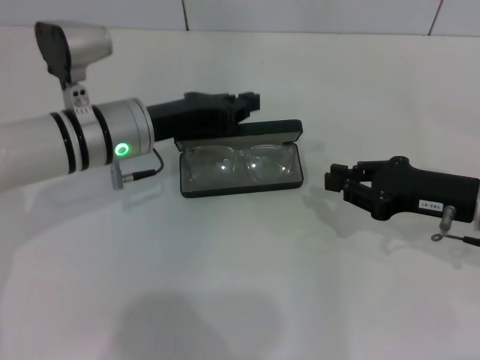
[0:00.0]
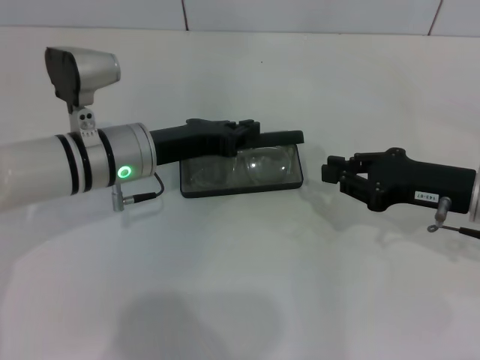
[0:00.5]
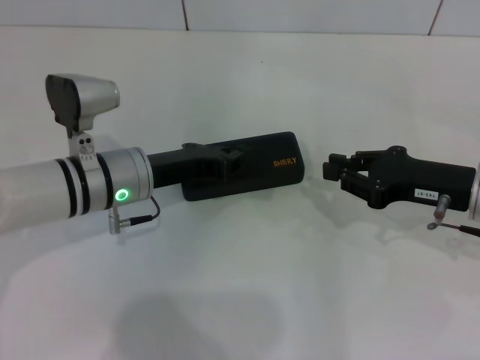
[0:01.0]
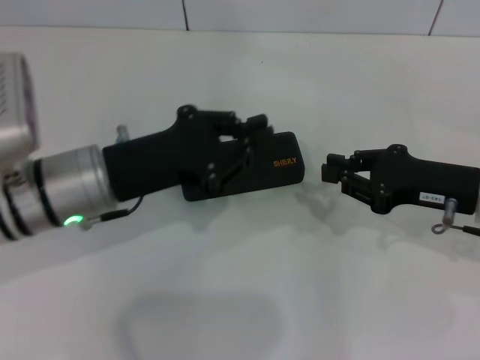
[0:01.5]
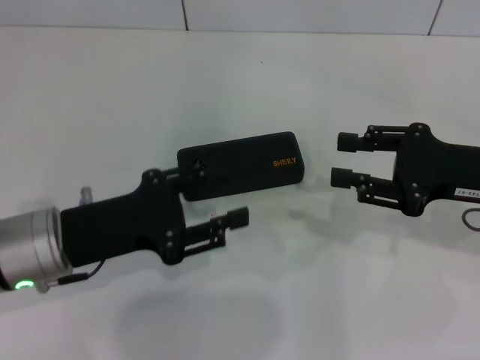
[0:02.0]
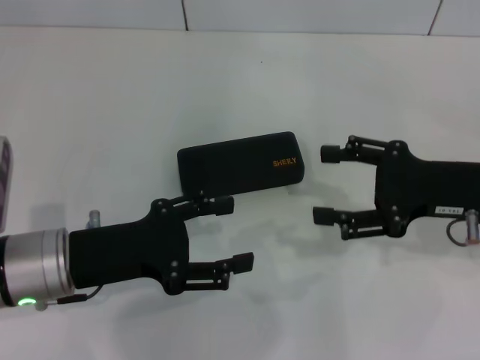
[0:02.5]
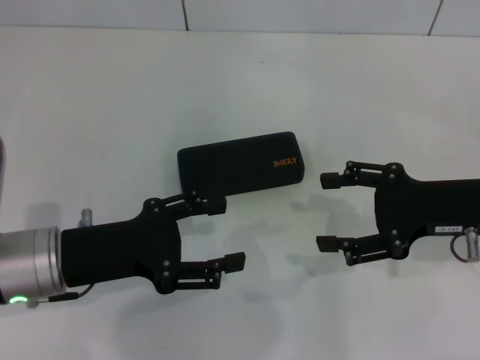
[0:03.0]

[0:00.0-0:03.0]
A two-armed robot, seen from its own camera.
0:00.0 to 0:01.5: The left gripper heads backward, covering roughly 5 cm.
0:01.5 to 0:03.0: The right gripper opens; the left gripper is displaced backward by about 5 cm, and opens up.

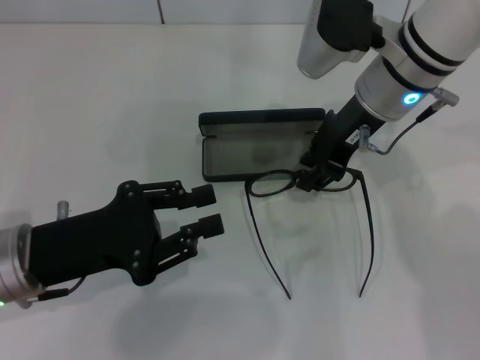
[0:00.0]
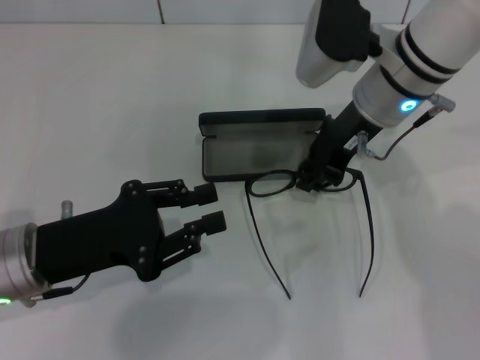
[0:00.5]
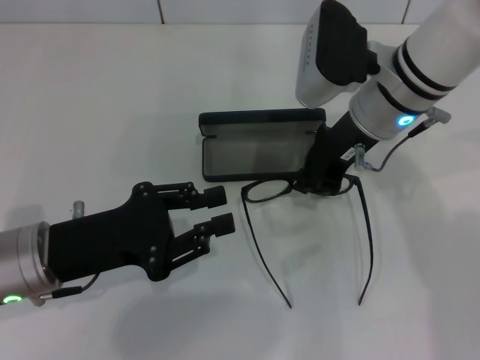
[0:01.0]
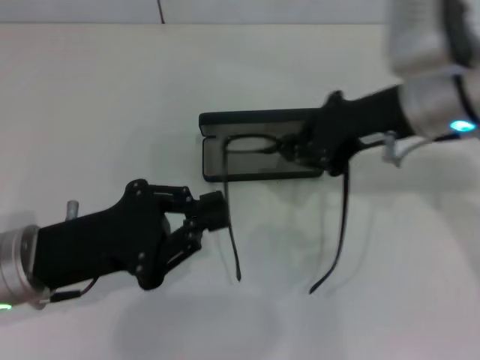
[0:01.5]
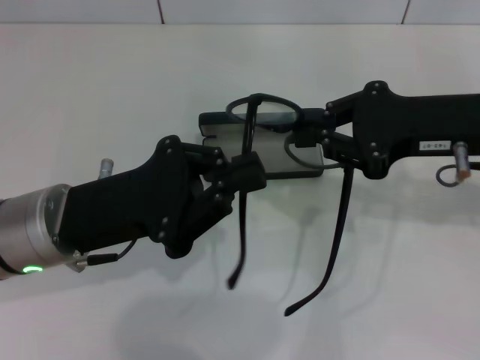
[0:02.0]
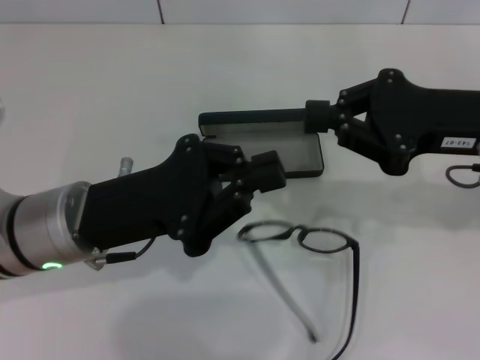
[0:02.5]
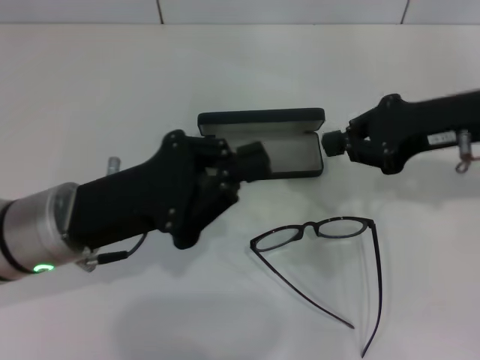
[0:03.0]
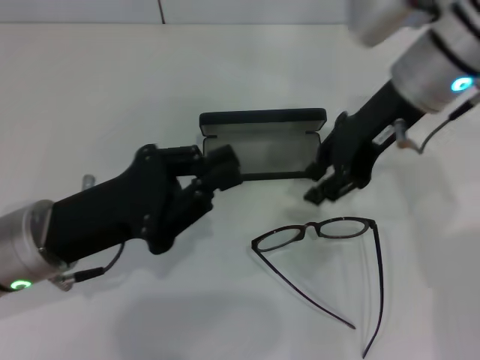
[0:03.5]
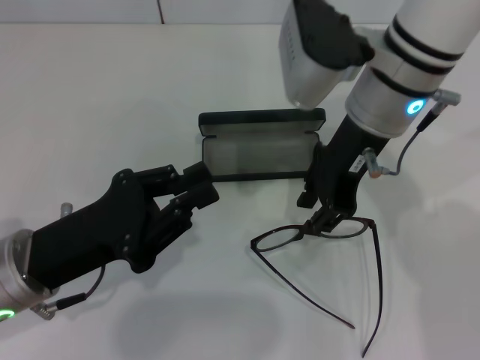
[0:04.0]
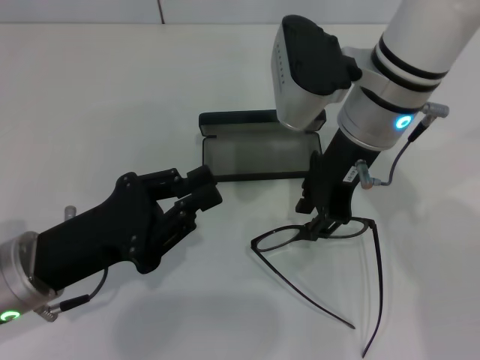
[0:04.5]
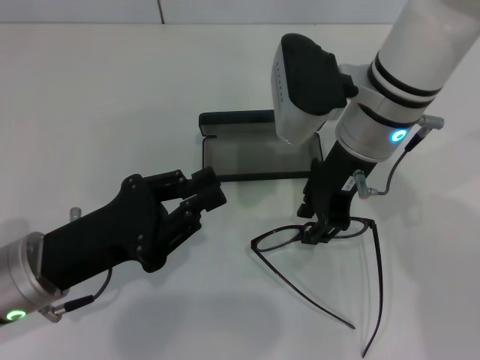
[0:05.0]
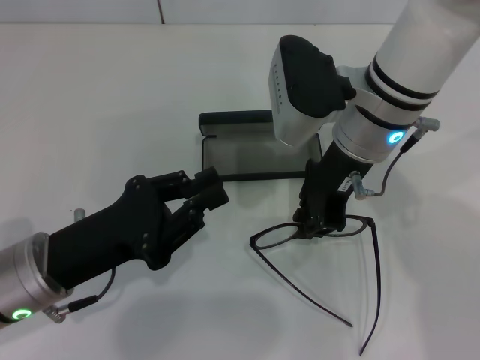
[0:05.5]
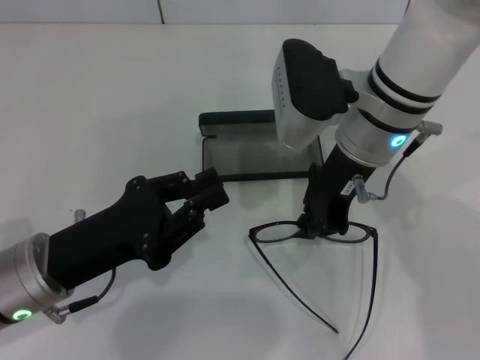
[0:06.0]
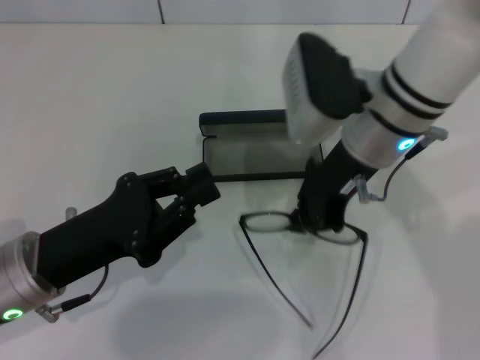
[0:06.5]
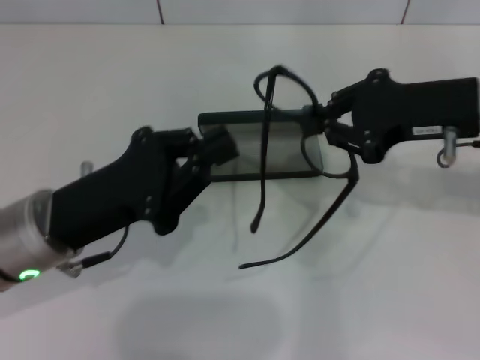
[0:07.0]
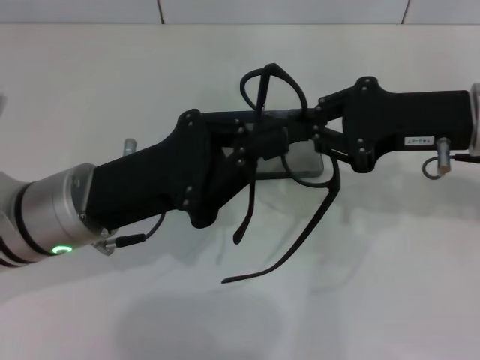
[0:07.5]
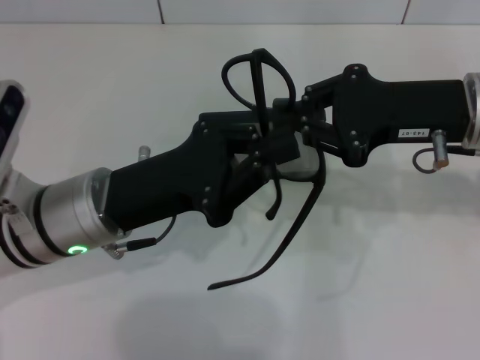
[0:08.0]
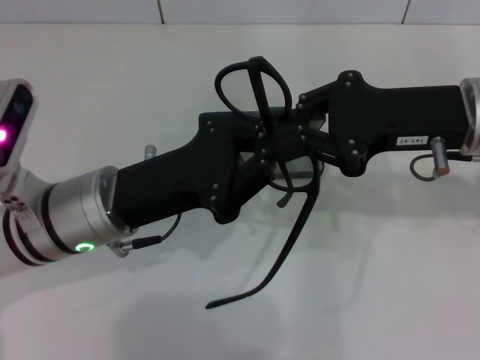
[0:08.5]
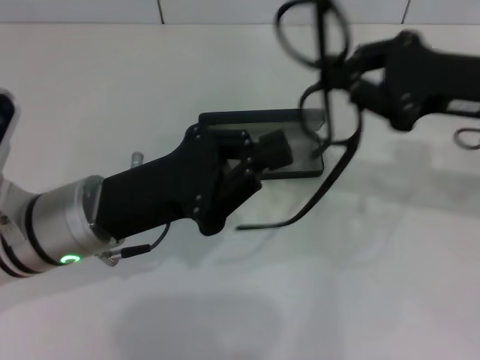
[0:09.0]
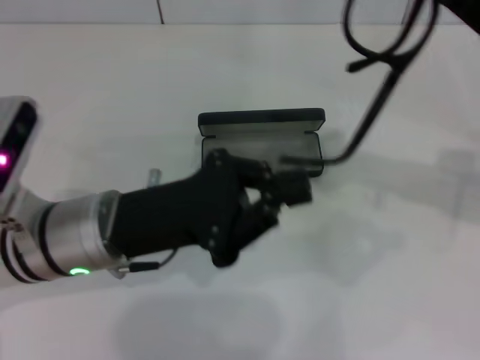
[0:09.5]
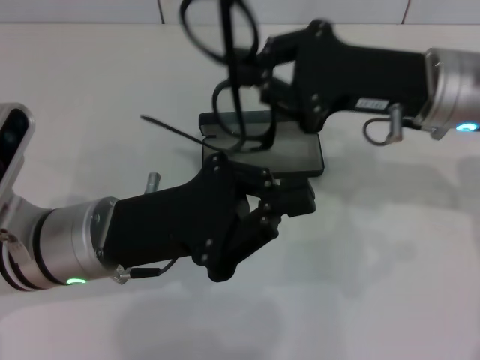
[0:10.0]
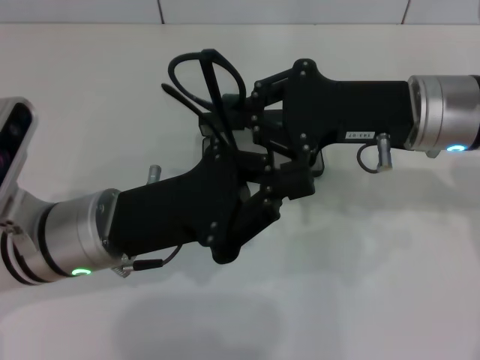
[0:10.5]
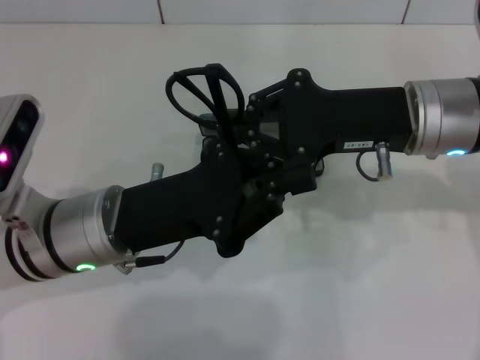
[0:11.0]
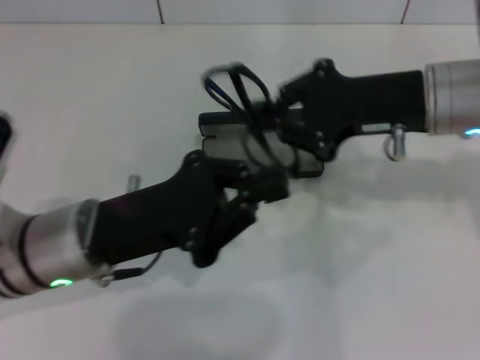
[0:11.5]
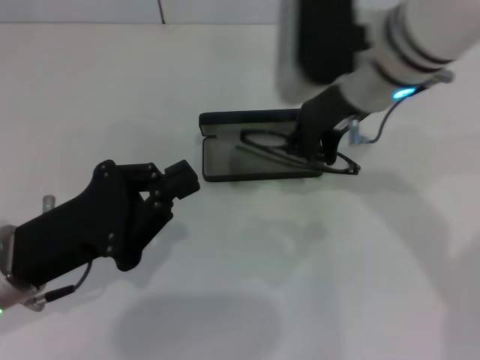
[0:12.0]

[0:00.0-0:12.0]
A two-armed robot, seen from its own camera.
Step, 0:00.0 to 0:05.5: Grab the eyeglass frame with your right hand.
Step, 0:06.0 to 0:11.0: Fold the frame with your left hand.
0:00.0 to 0:02.0: The right gripper heads to the right and backward, covering roughly 15 cm. The left gripper moves about 5 cm, and closes.
0:02.0 to 0:04.0: The right gripper travels to the left by about 15 cm, and opens up; the left gripper ends up about 5 cm from where it was.
0:06.0 to 0:08.0: The right gripper moves to the right, some 10 cm; the left gripper changes place by some 10 cm.
0:10.0 to 0:12.0: Both grippers move to the left, approximately 5 cm.

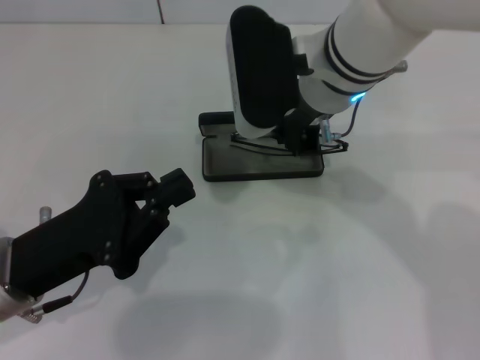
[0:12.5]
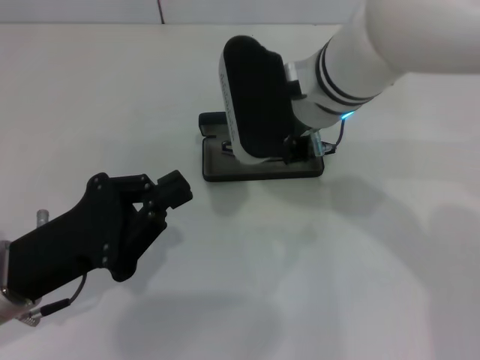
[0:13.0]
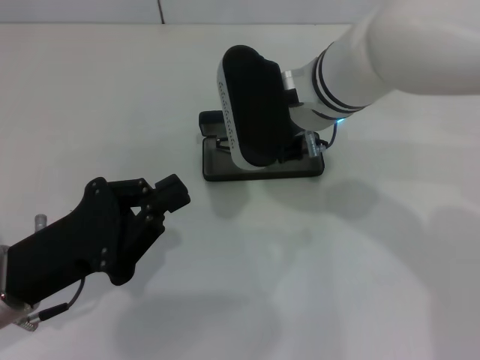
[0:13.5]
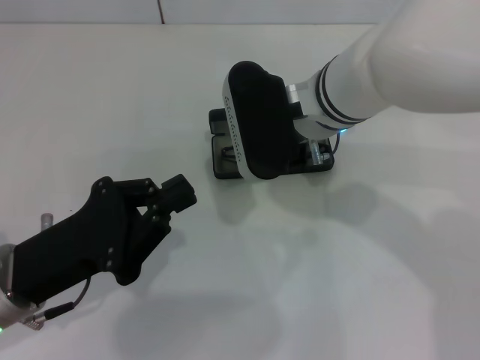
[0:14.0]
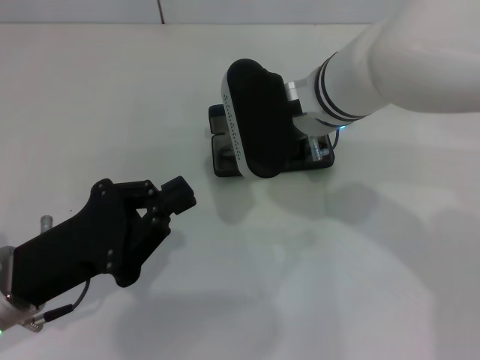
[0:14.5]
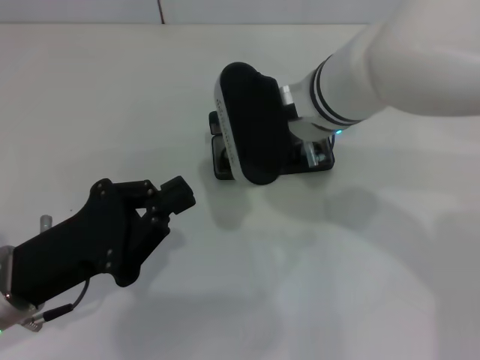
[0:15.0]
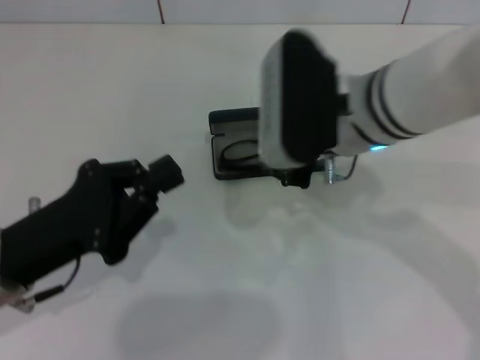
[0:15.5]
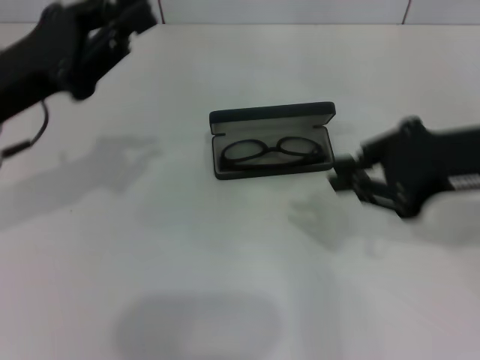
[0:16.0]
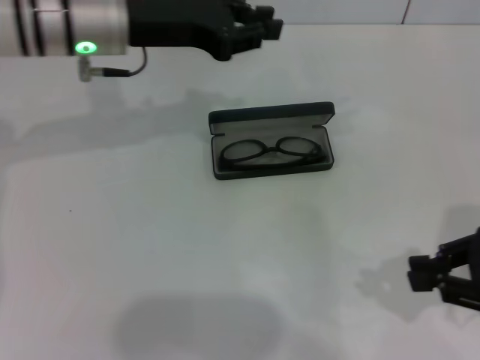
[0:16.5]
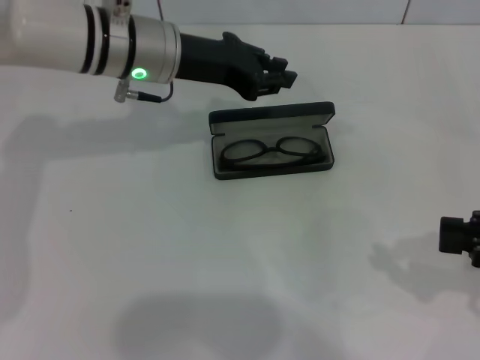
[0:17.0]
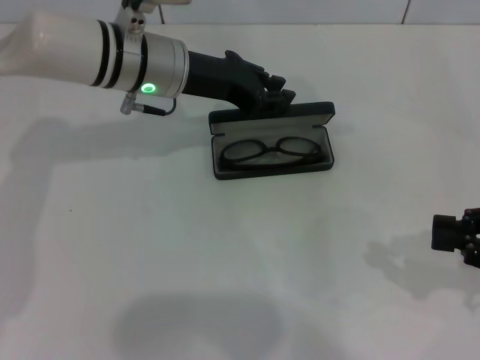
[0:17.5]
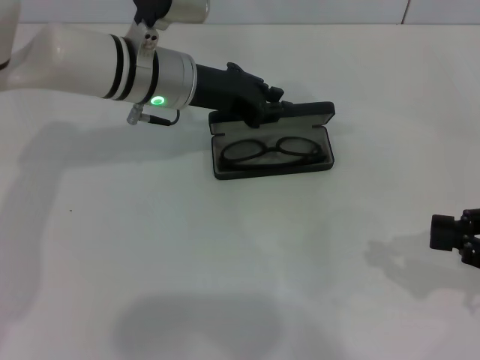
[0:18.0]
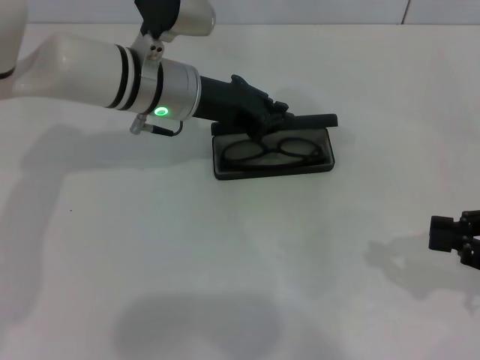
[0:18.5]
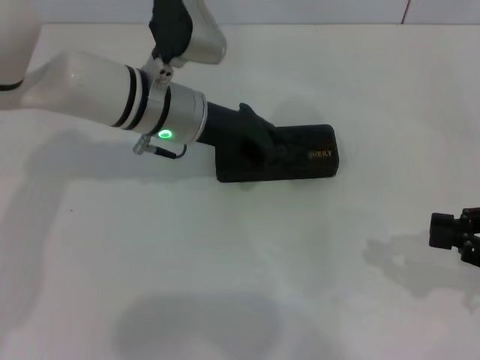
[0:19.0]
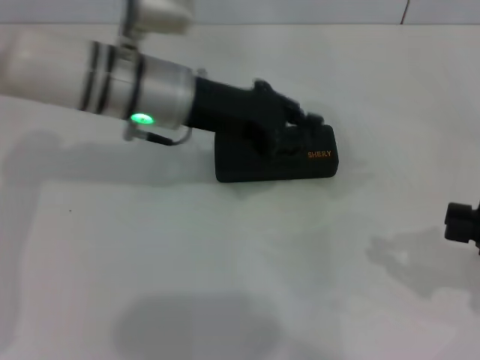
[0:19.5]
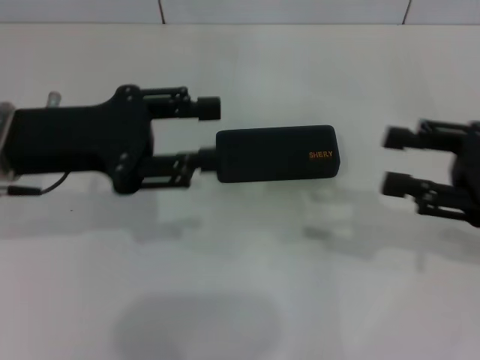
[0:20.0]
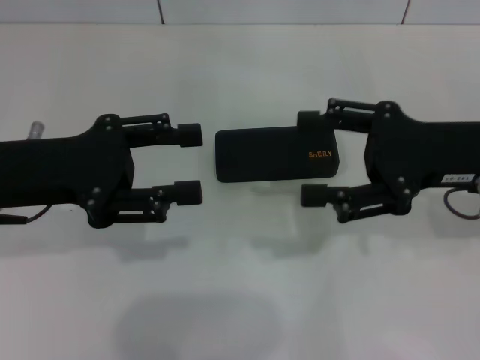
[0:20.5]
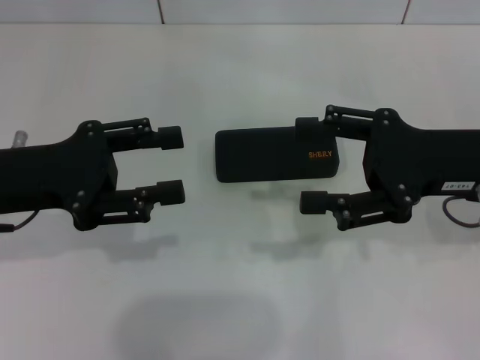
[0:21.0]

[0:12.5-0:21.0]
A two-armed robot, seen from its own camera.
Step, 0:12.5 to 0:14.5: Put the glasses into the case with your right hand.
Step, 0:15.0 to 0:19.0: Close the glasses case with your left hand.
0:12.5 to 0:14.5: The grippers stay close to where they were, moving slightly.
0:14.5 to 0:16.5: The left gripper travels forward and upward by some 25 cm; the right gripper moves to the right and backward, approximately 30 cm.
0:16.5 to 0:19.0: The left gripper is displaced downward and to the right by approximately 10 cm.
0:19.0 to 0:21.0: The left gripper travels to the left and backward by some 20 cm, and opens. The right gripper moves to the left and forward, some 15 cm, and opens up.

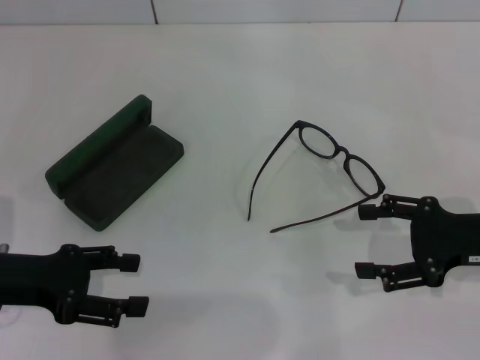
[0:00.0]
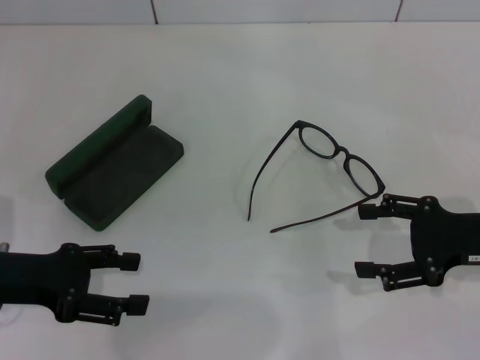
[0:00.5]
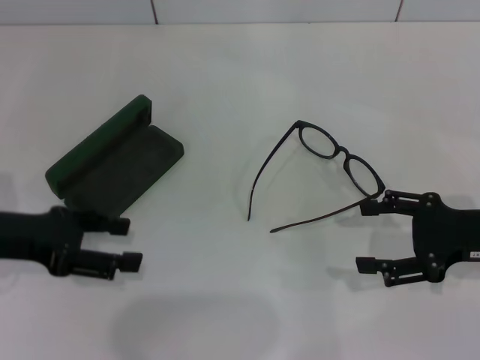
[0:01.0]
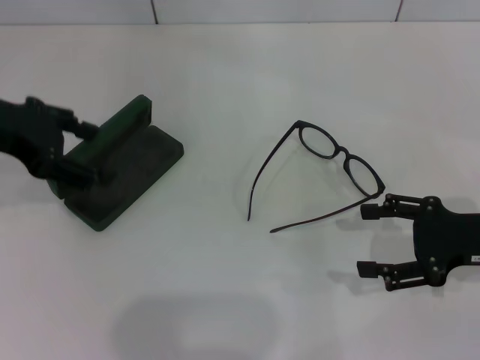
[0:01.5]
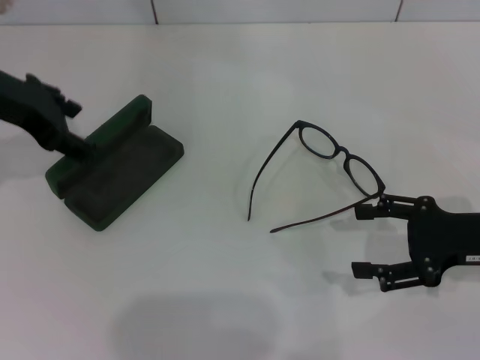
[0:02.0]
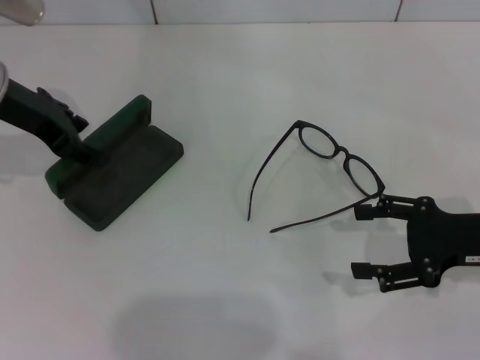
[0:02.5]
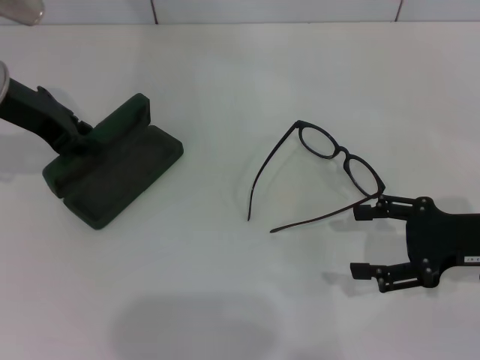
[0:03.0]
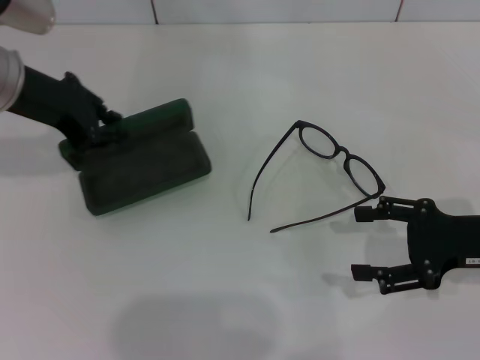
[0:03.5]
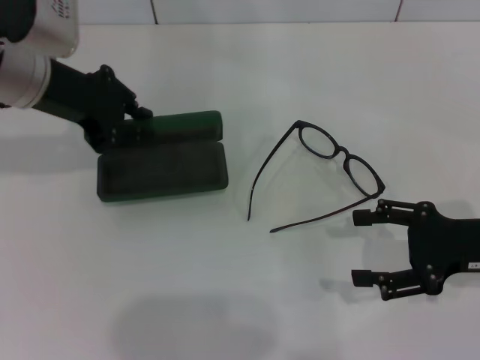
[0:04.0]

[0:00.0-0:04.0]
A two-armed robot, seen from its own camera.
Step, 0:00.0 to 0:03.0: Grab the glasses case with your left hand.
0:00.0 to 0:02.0: The left gripper is displaced forward and upward by some 20 cm.
0:02.0 to 0:04.0: The left gripper closes its fingers.
